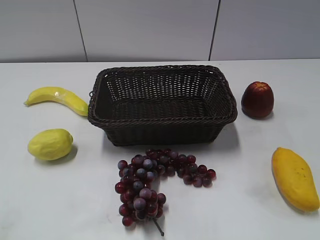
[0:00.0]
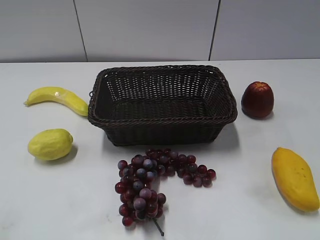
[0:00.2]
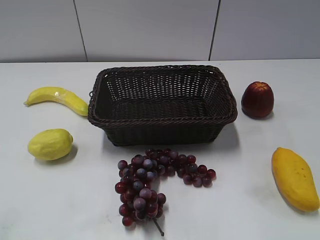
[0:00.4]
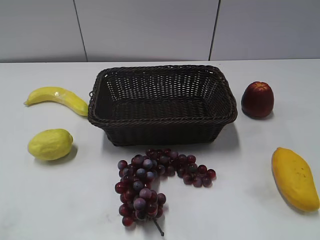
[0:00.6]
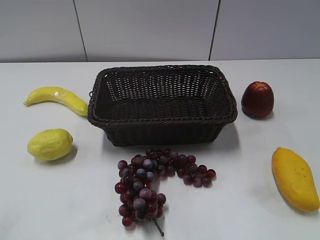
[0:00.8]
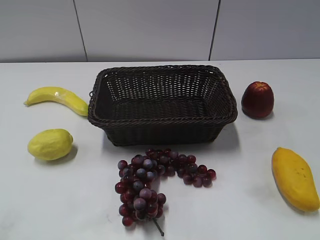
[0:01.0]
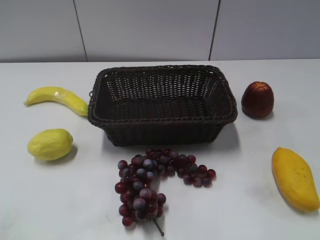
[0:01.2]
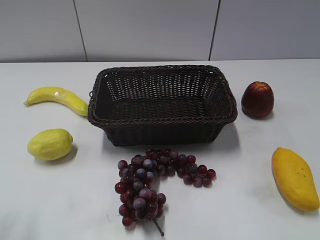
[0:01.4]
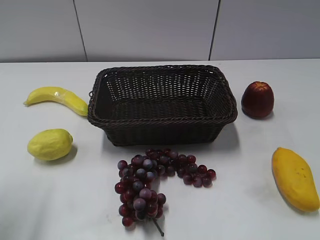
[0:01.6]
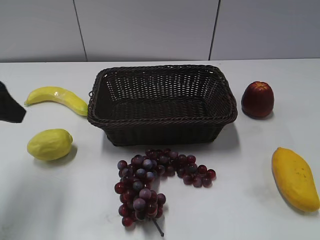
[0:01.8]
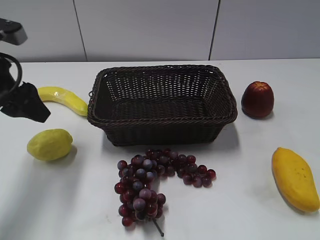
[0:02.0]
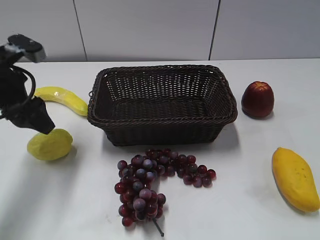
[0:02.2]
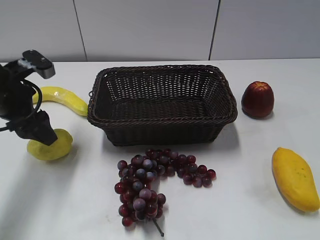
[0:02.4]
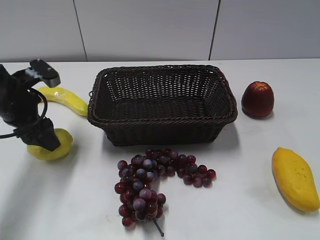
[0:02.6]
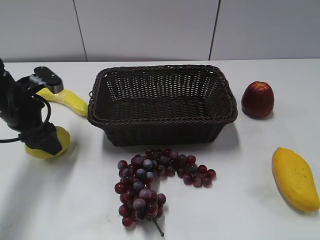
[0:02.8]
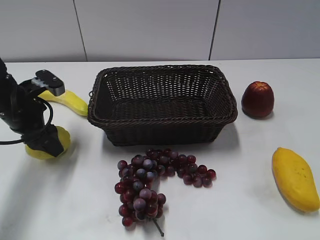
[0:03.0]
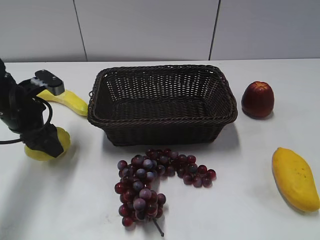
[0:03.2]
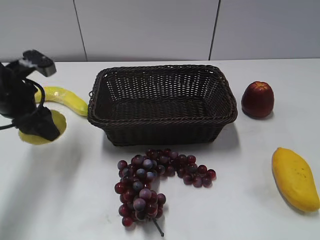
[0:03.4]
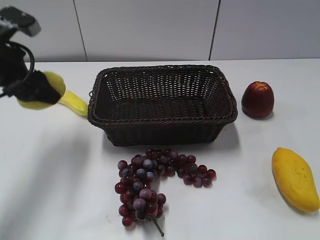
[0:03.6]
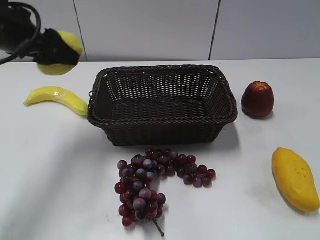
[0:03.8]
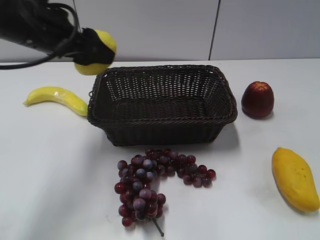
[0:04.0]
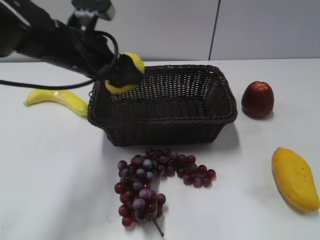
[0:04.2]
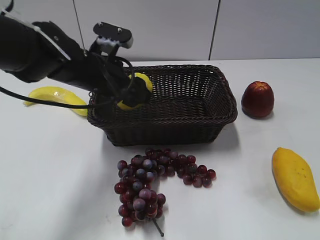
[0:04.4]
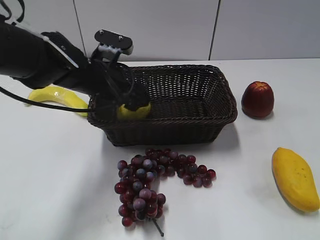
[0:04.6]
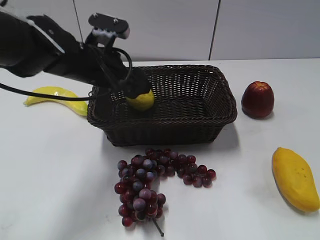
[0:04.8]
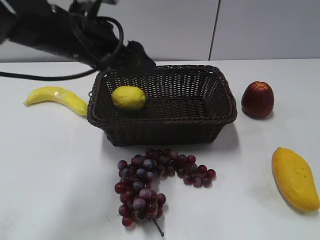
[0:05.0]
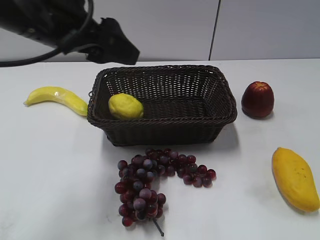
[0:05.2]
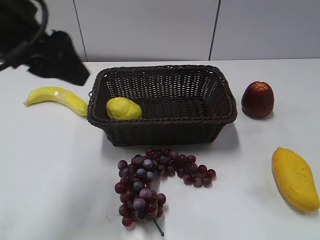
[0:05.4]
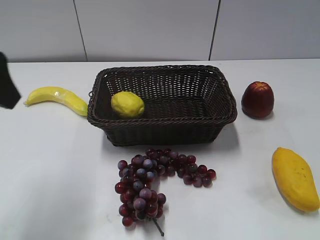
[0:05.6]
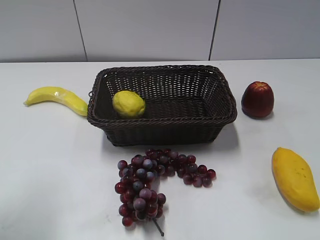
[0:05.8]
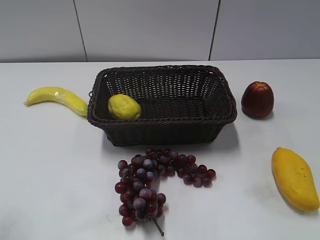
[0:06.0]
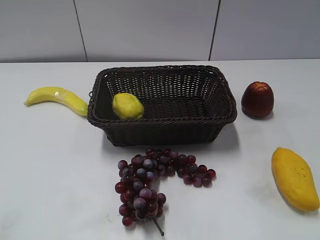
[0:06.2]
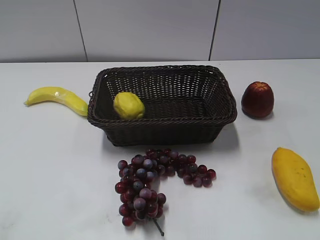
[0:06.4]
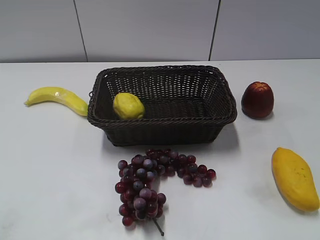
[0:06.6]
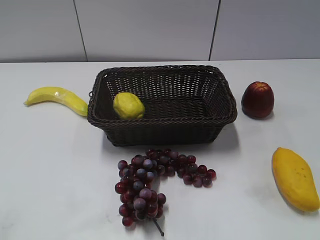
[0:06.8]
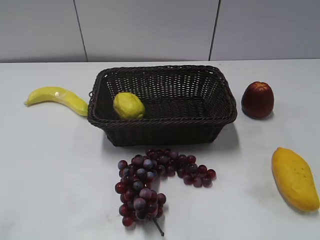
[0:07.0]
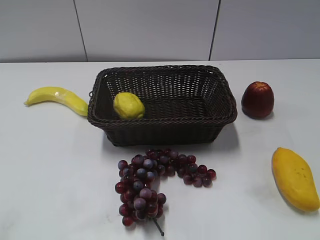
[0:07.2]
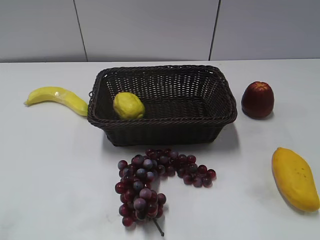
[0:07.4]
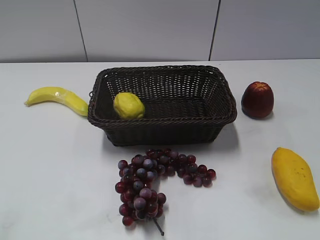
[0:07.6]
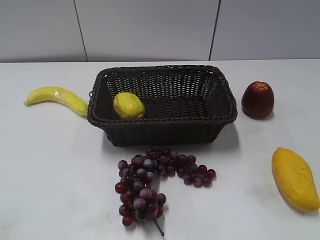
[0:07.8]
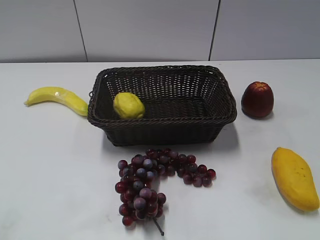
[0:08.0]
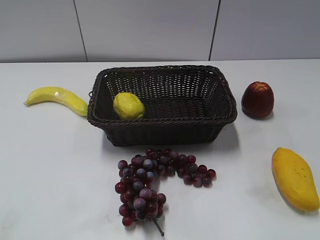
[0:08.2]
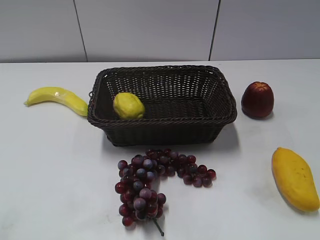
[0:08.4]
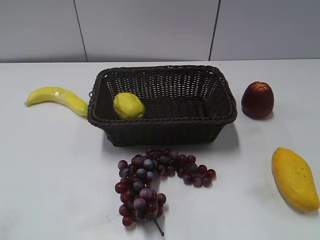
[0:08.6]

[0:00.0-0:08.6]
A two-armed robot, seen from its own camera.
Step, 0:01.8 to 0:03.2: Grasp the lemon with left gripper.
Step, 0:03.6 to 0:04.6: Place the lemon in the basket with left gripper.
0:01.4 to 0:02.8: The left gripper heads forward and downward, covering some 25 cm.
0:02.8 to 0:04.4: The left gripper moves to the right, approximately 15 cm, moves approximately 15 cm upward and comes back, and closes up.
0:04.4 to 0:05.8: The left gripper travels backward, to the left and upward by roughly 30 cm, and opens, then closes once more.
0:05.8 to 0:07.2: The left gripper goes approximately 15 cm backward, and opens, then closes once more.

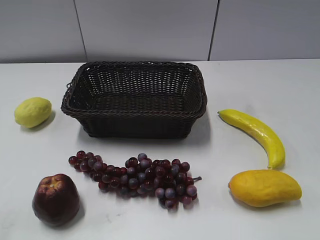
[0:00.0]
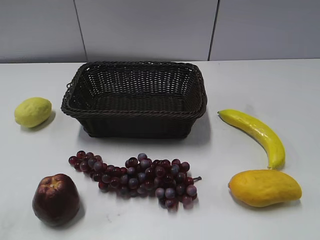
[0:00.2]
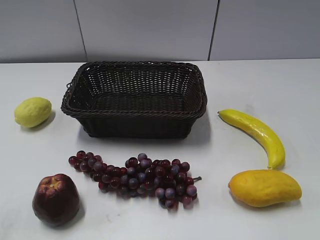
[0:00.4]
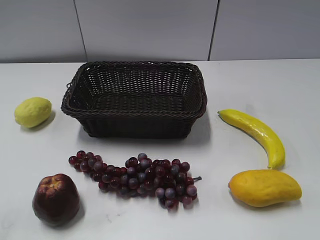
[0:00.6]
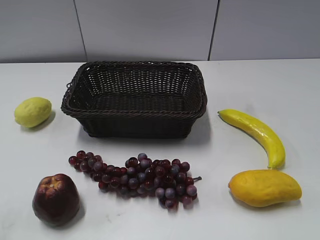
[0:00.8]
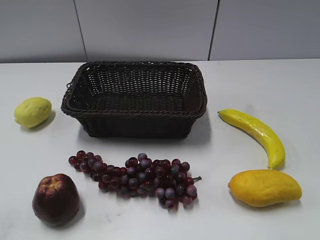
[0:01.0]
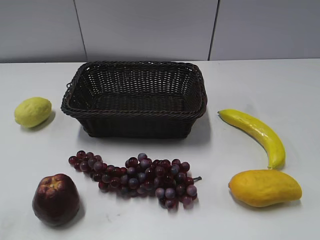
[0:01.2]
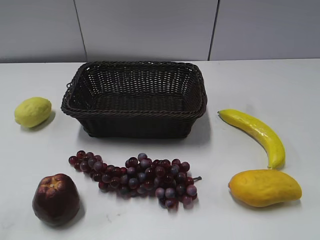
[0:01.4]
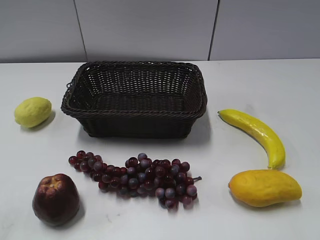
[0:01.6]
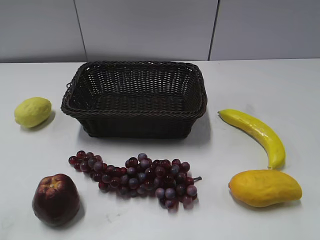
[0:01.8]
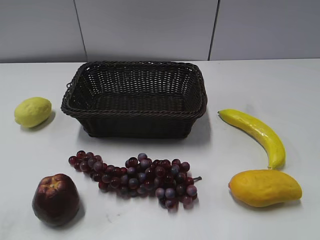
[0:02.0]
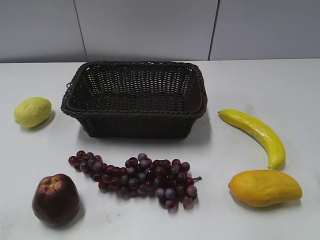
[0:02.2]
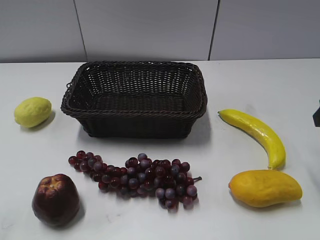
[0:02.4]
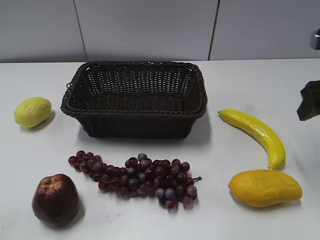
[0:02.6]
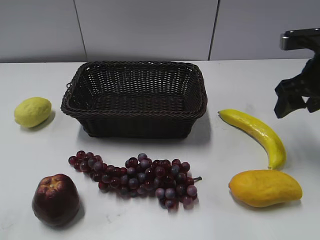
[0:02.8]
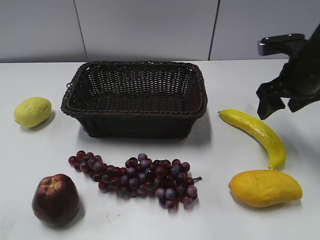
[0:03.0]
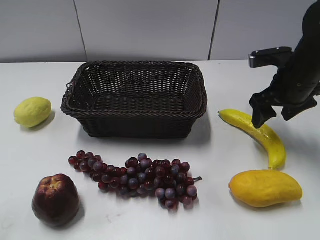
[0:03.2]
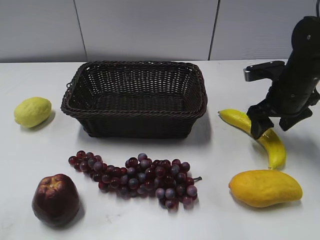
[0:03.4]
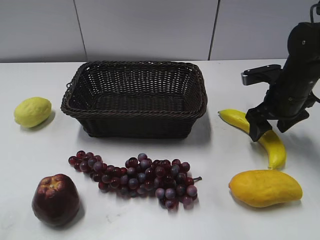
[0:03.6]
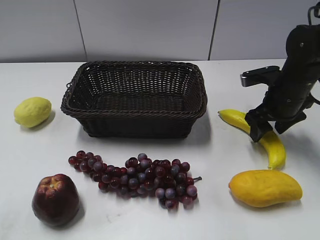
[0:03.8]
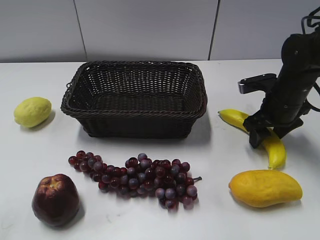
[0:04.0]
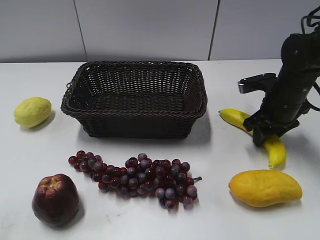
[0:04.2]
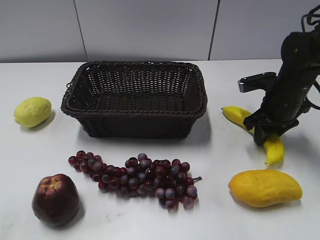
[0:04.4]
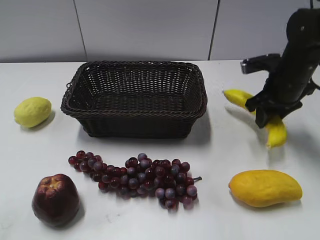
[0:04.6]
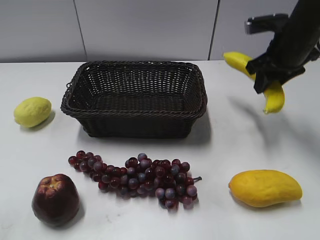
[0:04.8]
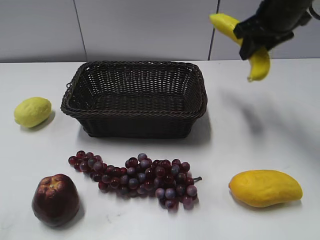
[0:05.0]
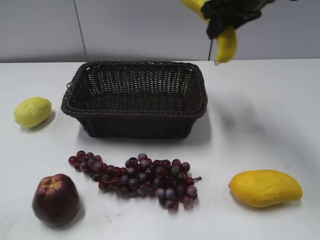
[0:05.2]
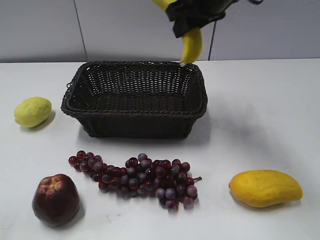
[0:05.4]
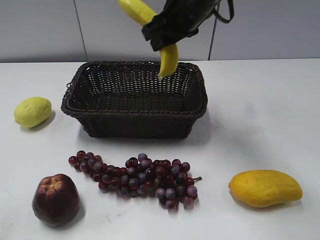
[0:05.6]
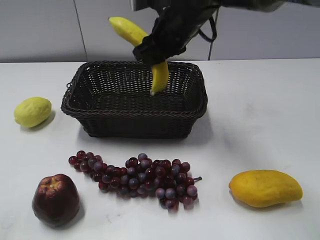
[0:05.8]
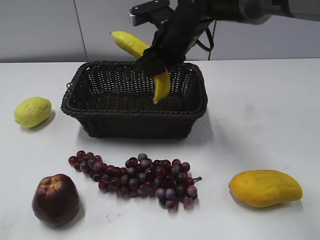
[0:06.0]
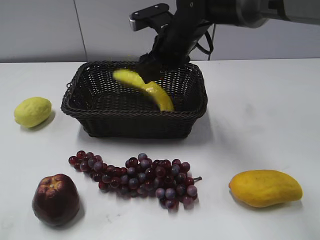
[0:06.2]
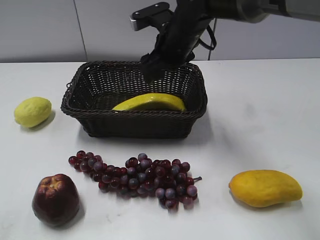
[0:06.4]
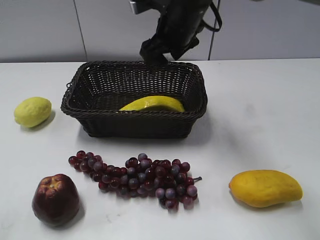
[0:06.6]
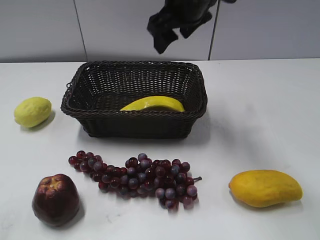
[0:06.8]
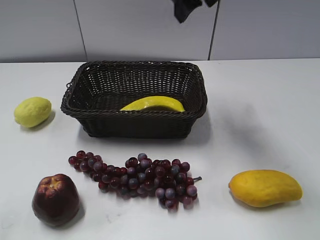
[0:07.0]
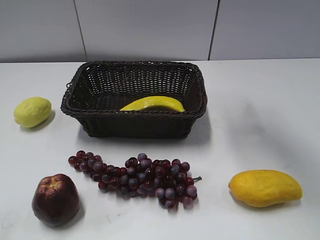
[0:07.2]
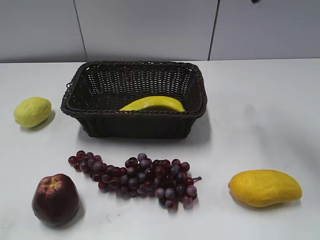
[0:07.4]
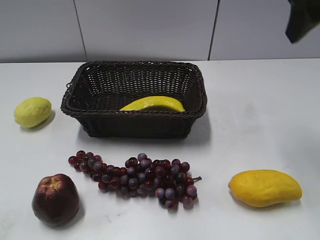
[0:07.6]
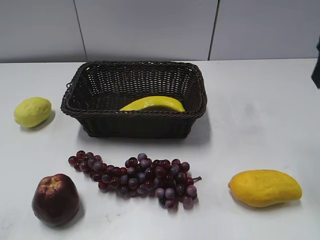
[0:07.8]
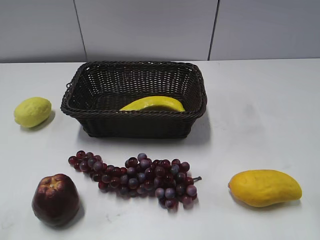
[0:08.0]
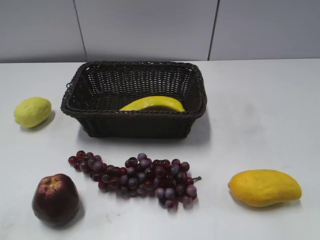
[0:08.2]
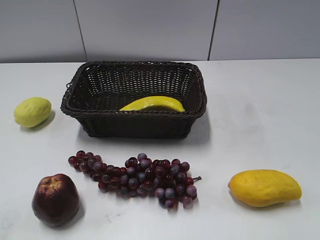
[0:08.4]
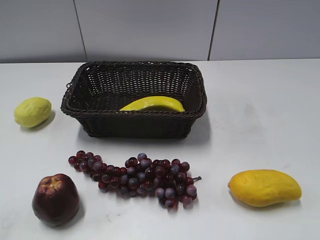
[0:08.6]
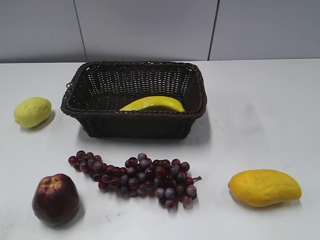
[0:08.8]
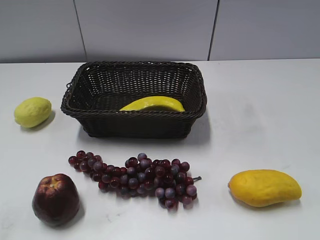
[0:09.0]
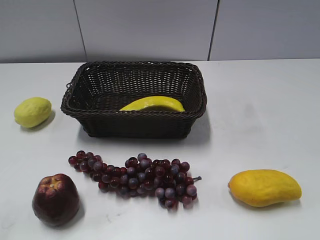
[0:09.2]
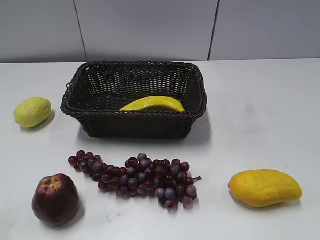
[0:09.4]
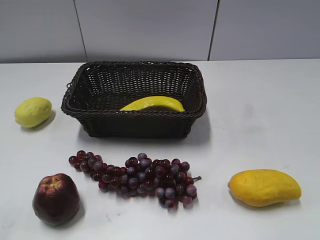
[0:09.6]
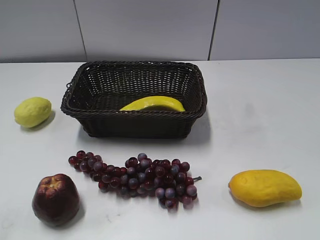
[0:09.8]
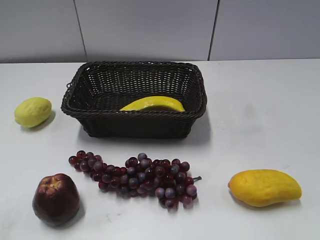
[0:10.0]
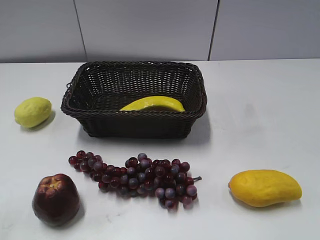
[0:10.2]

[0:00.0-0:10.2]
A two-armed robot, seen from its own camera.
Step, 0:02.4 to 0:04.2: Grasp the banana with right gripper.
Step, 0:04.4 to 0:06.6: Place the banana in the basket with right gripper.
0:01.4 to 0:03.0: The right gripper heads forward, covering some 35 cm.
0:03.0 to 0:04.4: The right gripper travels downward by some 10 cm, and closes.
0:04.4 to 0:05.8: The right gripper heads to the left and upward, covering about 25 cm.
0:05.8 to 0:07.2: The right gripper moves upward and to the right, roughly 20 cm, and opens up.
0:07.2 to 0:08.8: The right gripper moves backward and to the right, roughly 35 cm.

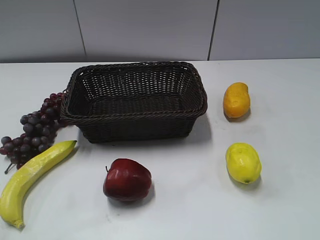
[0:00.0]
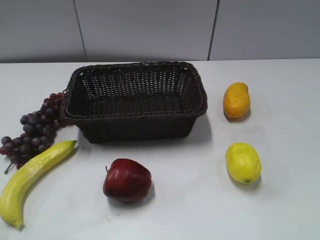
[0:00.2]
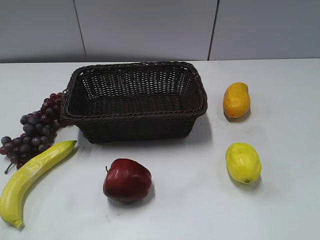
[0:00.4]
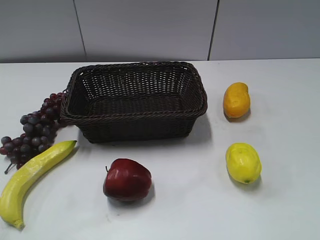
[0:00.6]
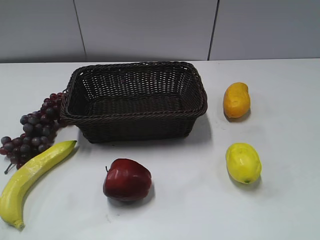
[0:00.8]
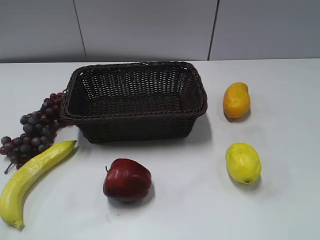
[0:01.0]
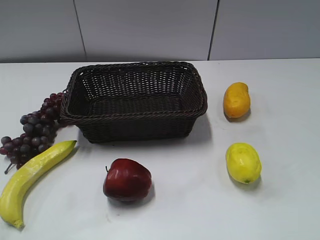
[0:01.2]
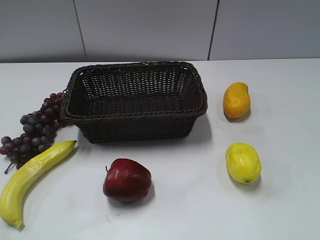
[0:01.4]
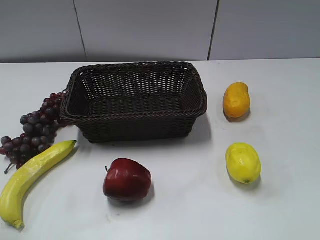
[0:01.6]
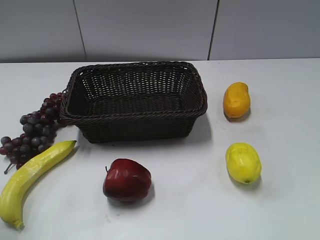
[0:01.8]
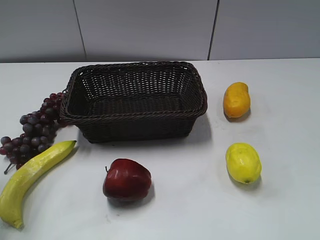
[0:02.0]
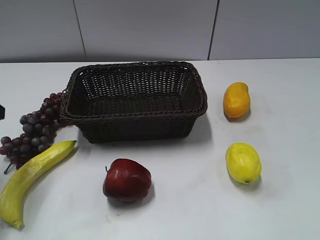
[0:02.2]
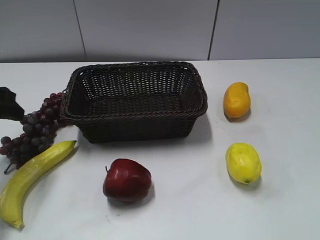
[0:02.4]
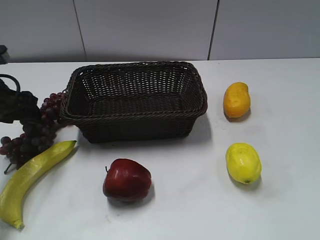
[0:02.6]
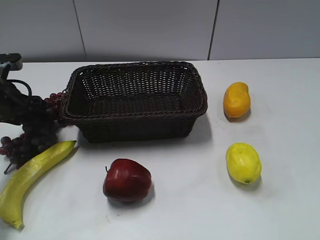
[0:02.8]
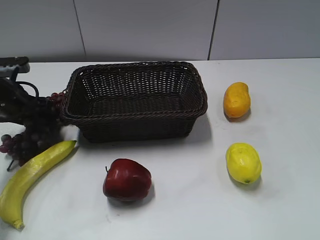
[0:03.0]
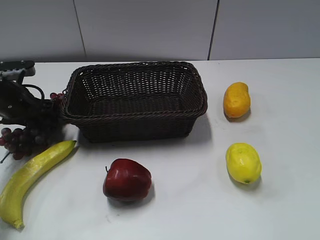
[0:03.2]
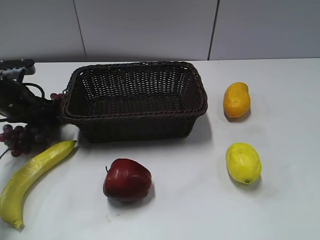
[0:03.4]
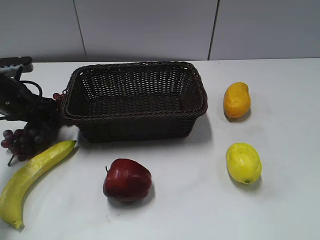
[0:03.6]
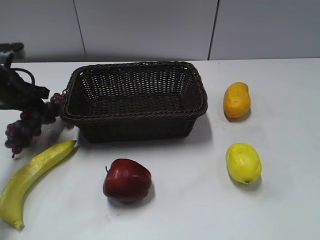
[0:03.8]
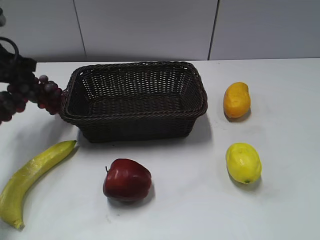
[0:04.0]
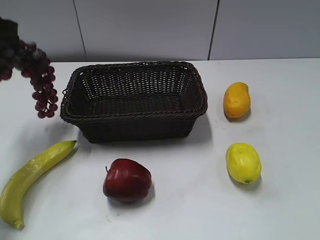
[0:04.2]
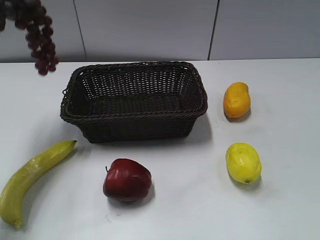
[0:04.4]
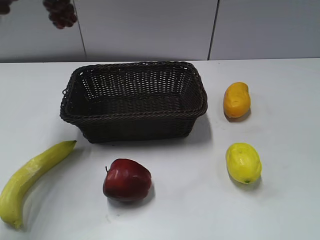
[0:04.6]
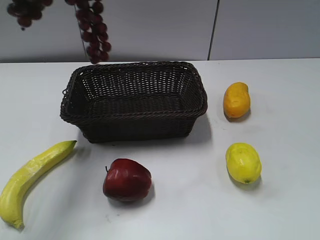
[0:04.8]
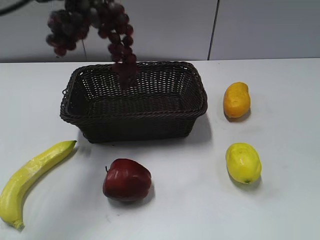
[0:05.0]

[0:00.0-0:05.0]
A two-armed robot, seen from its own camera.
Step, 0:02.0 to 0:03.8: Grasp the grape with left gripper.
0:01.6 to 0:03.4: The left gripper shifts approximately 35 cm forward and downward, and closes.
0:03.4 to 0:05.0: The left gripper moves upward and to the right, roughly 25 cm.
